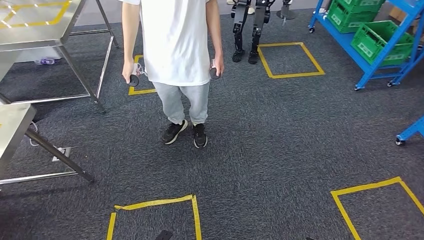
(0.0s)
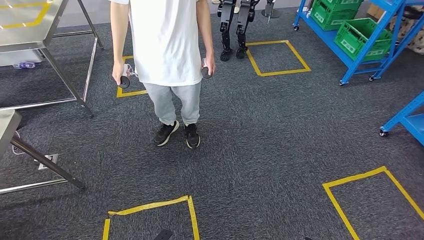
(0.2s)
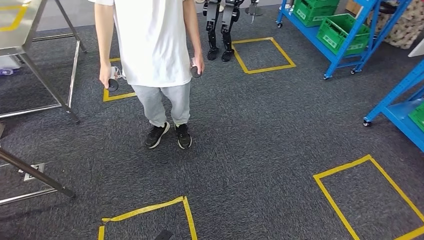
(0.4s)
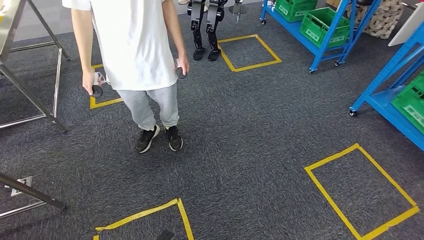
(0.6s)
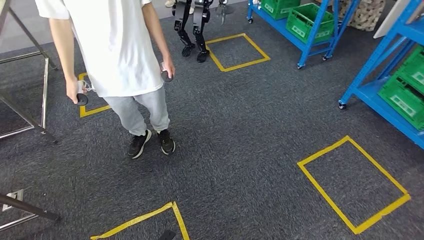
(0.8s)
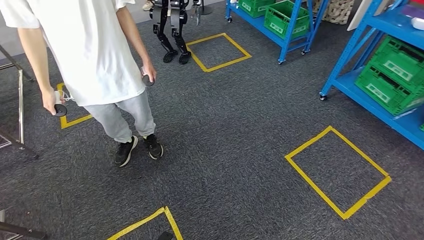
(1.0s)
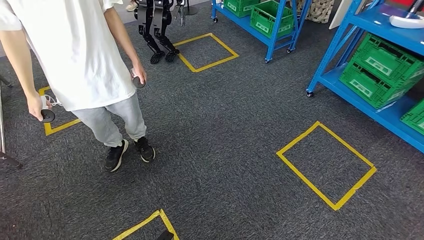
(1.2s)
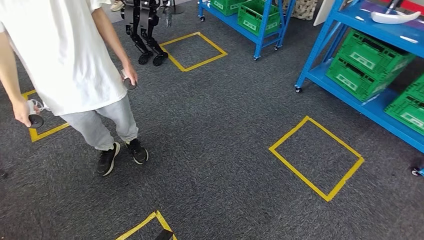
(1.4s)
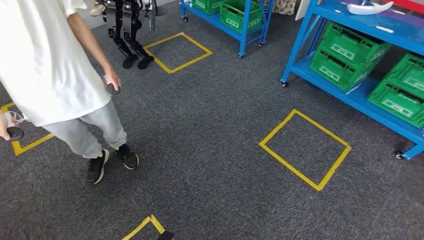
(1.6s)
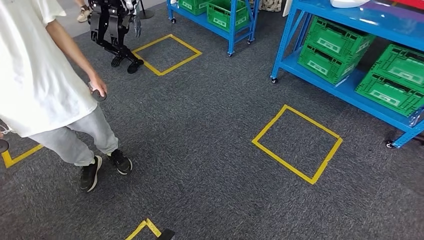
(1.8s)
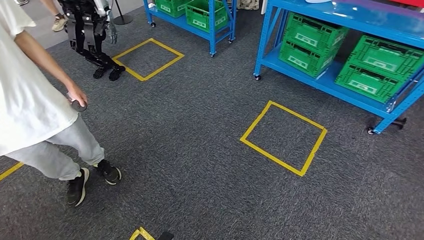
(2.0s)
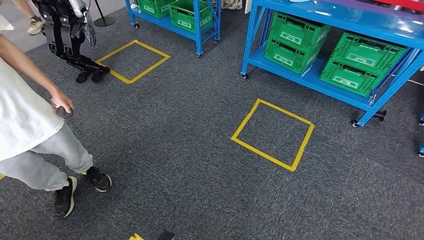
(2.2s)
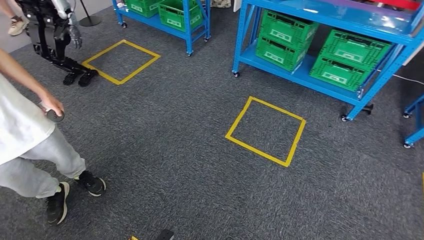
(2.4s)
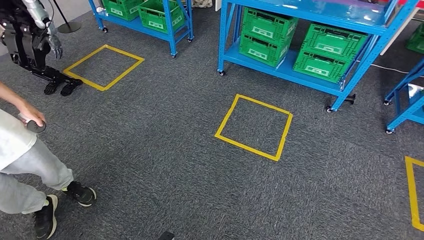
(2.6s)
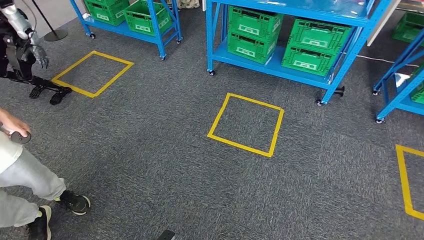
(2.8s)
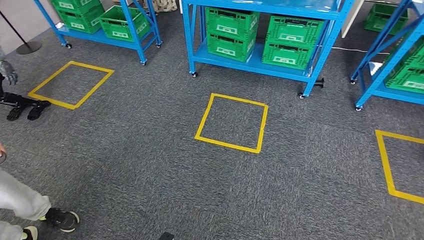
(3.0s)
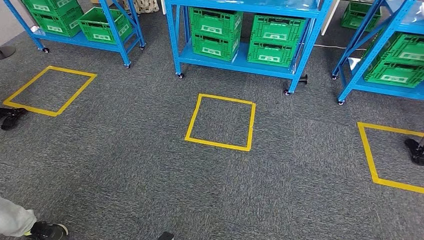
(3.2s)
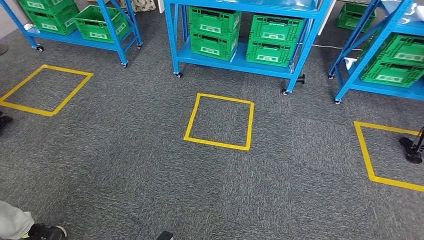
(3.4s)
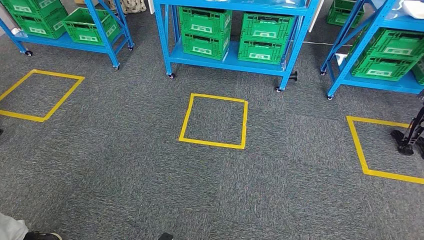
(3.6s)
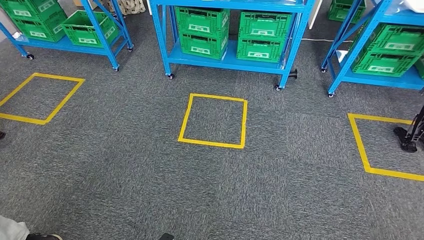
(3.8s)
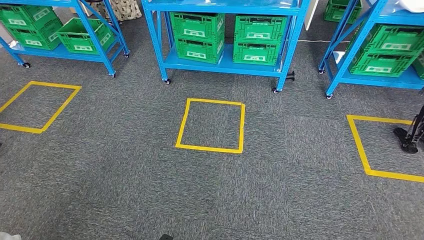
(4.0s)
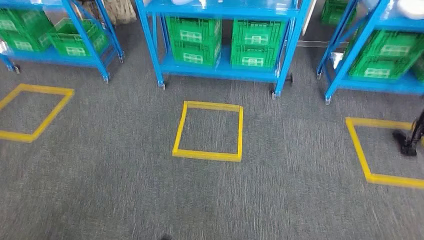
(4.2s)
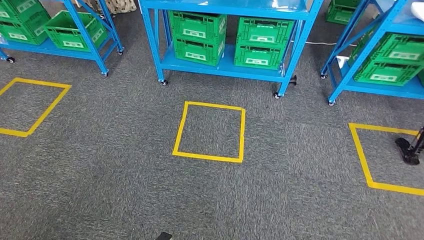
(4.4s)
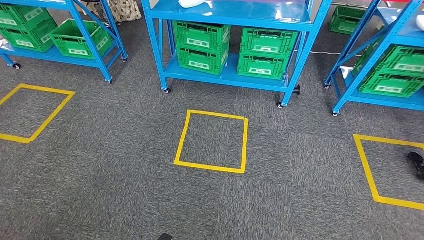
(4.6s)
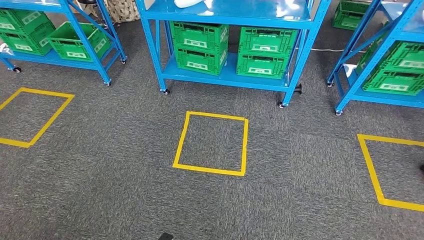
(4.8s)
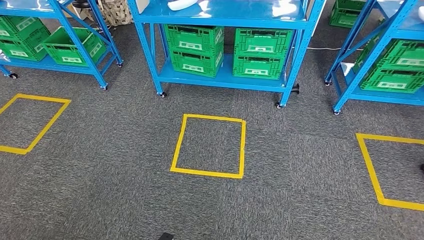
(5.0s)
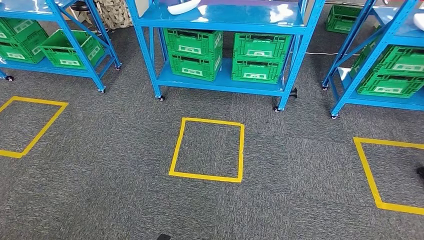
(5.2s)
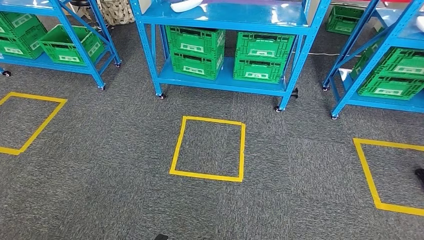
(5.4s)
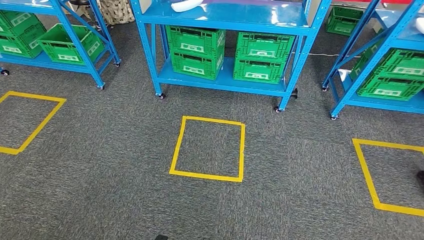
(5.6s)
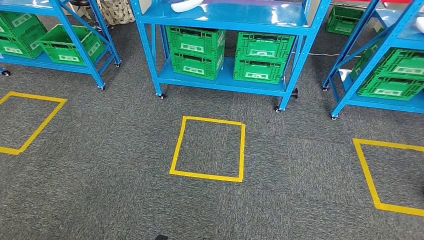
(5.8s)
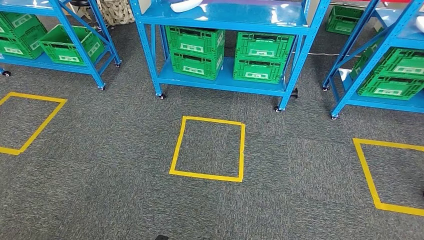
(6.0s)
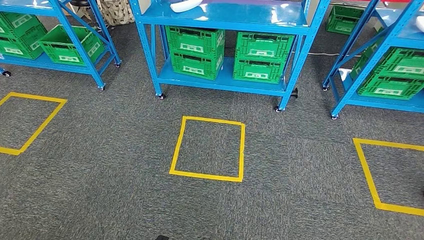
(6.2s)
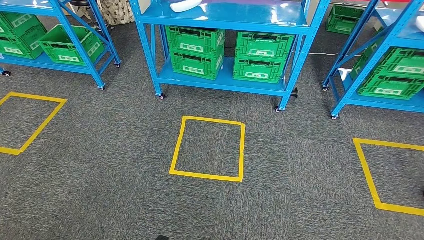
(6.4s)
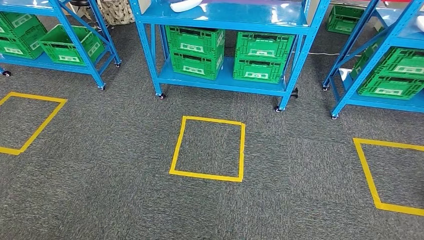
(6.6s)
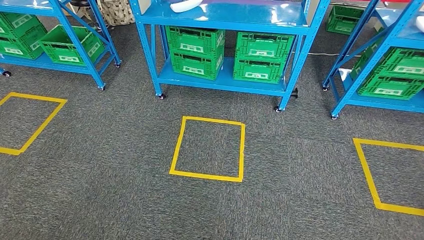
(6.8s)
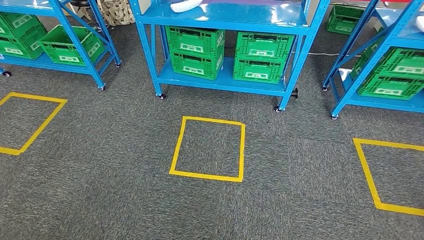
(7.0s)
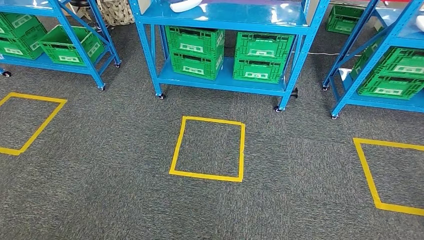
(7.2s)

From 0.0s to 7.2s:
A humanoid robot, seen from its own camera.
Step, from 0.0s to 7.2s: Return to the initial position at the workbench.
From 5.8s to 7.2s: The right hand shifts about 5 cm backward.

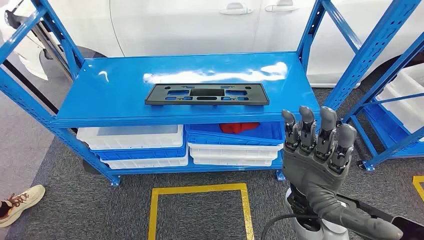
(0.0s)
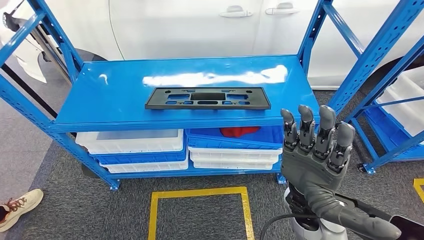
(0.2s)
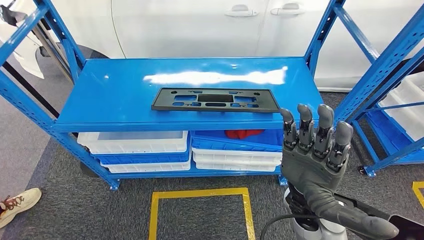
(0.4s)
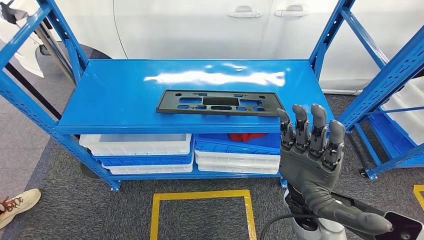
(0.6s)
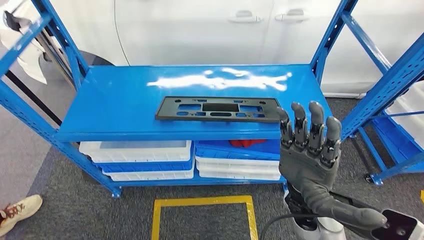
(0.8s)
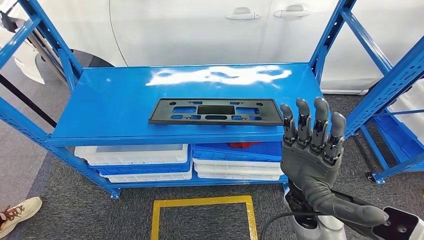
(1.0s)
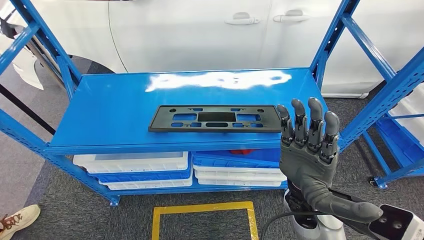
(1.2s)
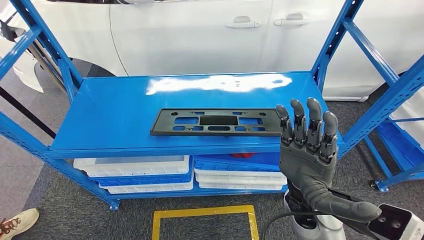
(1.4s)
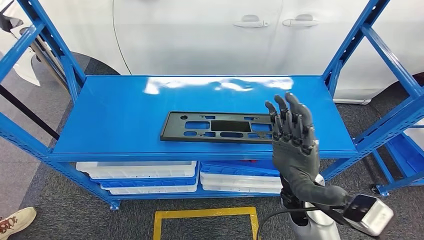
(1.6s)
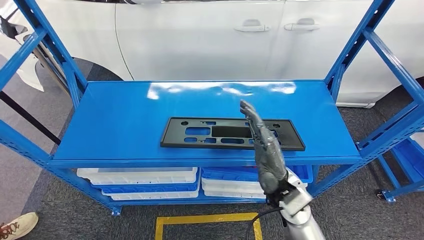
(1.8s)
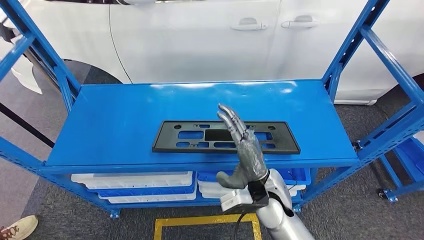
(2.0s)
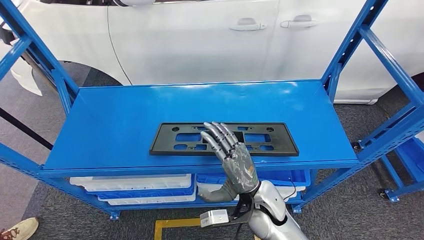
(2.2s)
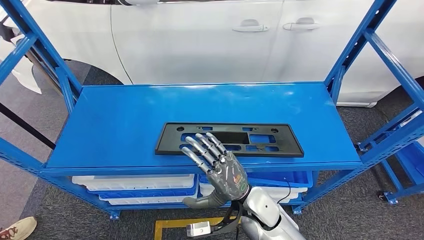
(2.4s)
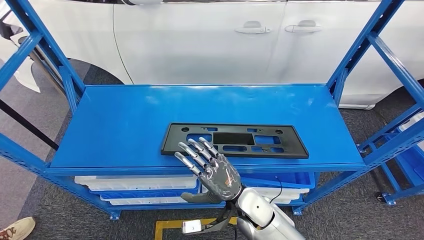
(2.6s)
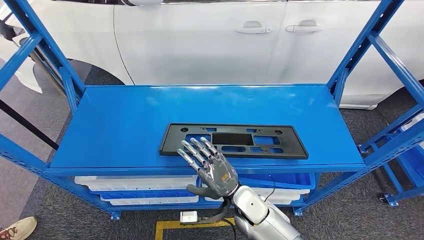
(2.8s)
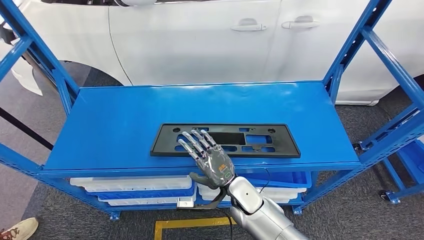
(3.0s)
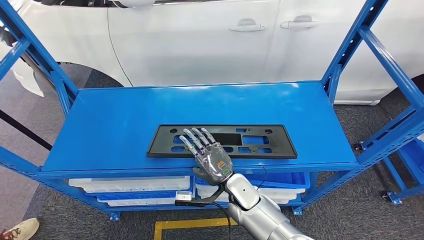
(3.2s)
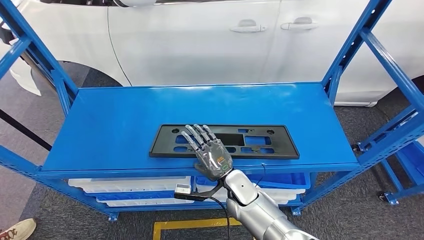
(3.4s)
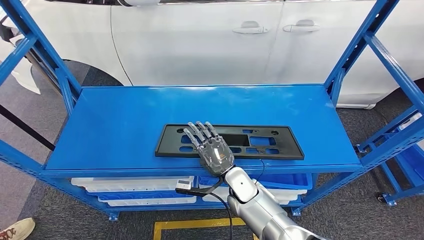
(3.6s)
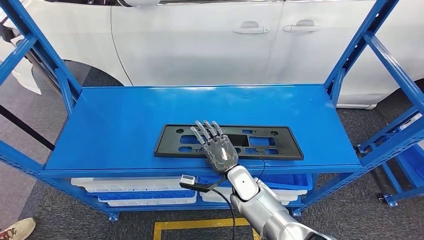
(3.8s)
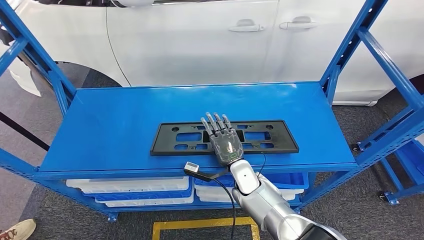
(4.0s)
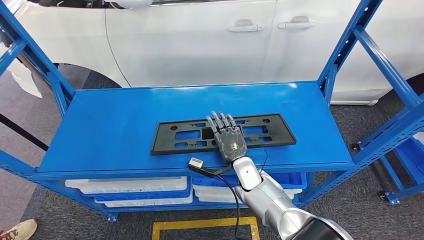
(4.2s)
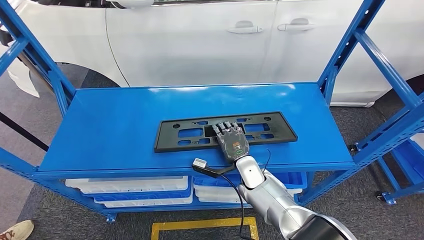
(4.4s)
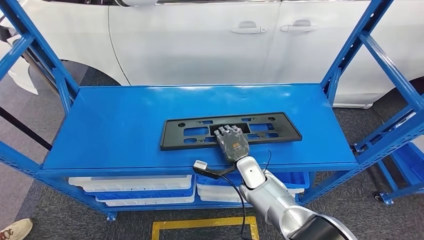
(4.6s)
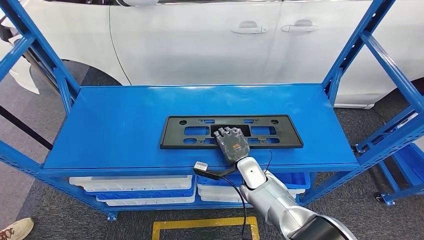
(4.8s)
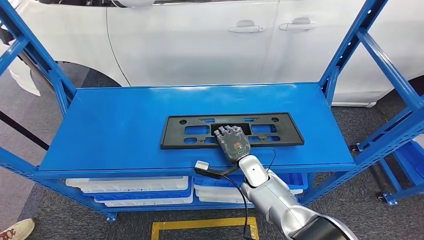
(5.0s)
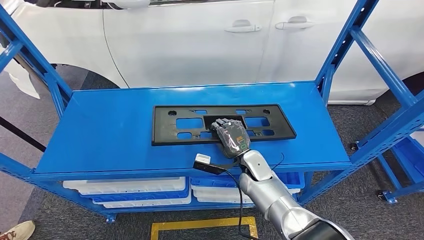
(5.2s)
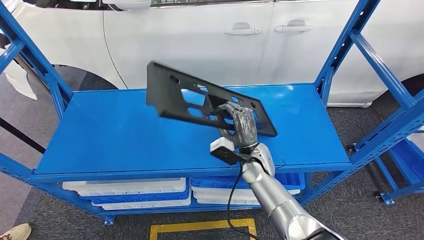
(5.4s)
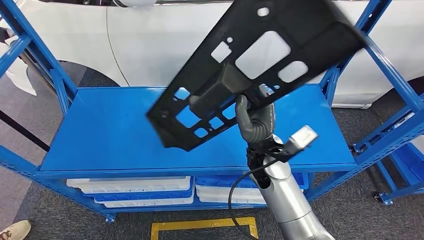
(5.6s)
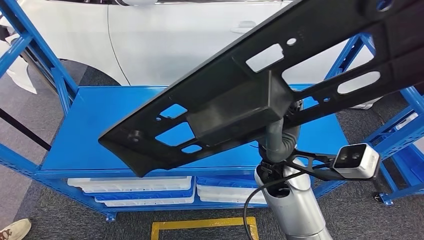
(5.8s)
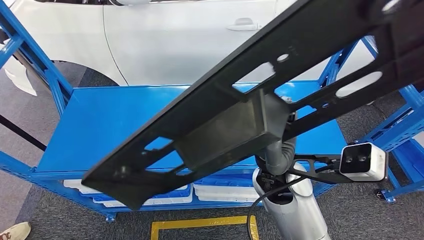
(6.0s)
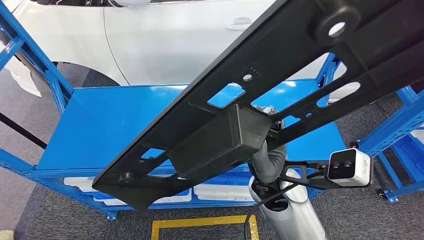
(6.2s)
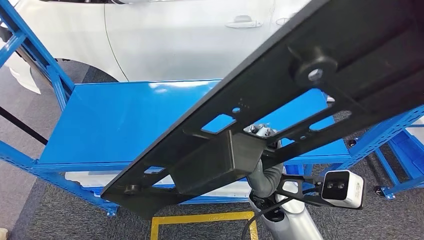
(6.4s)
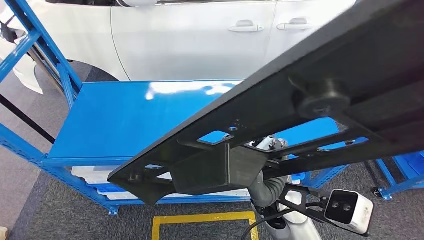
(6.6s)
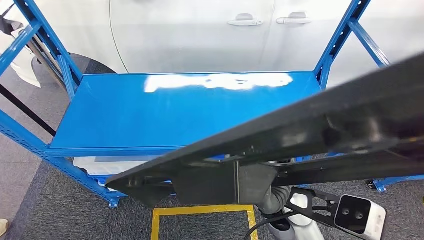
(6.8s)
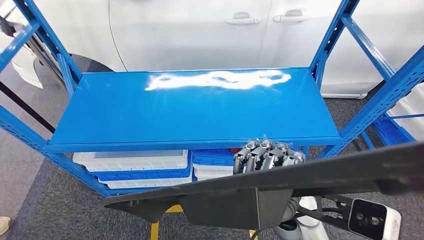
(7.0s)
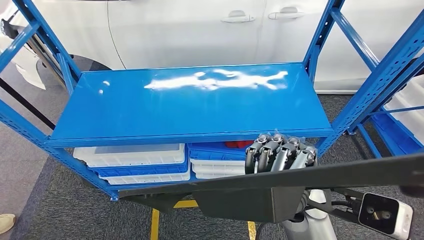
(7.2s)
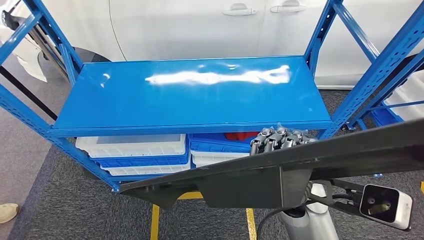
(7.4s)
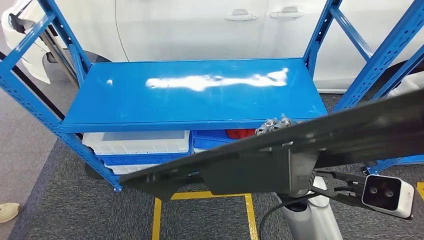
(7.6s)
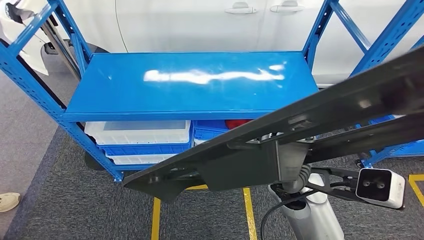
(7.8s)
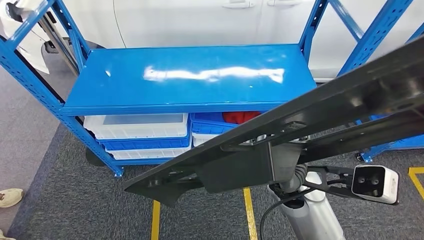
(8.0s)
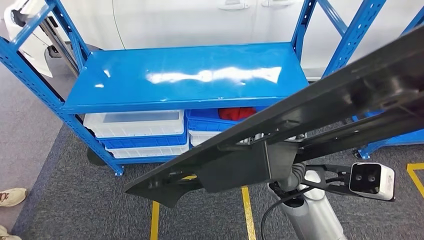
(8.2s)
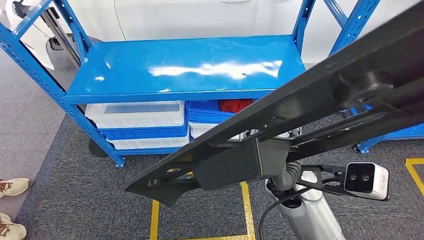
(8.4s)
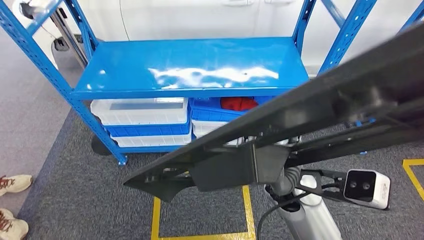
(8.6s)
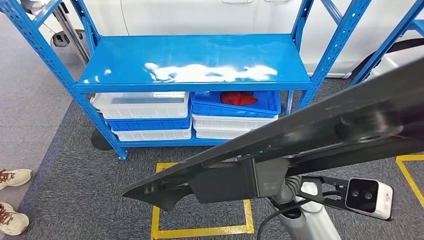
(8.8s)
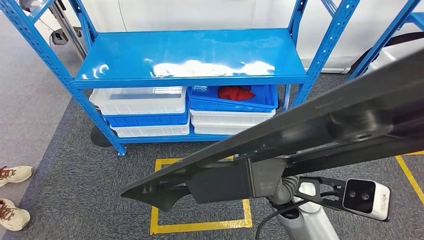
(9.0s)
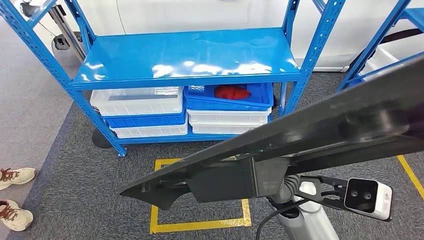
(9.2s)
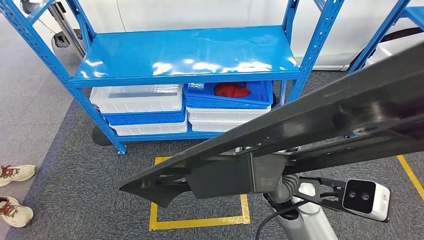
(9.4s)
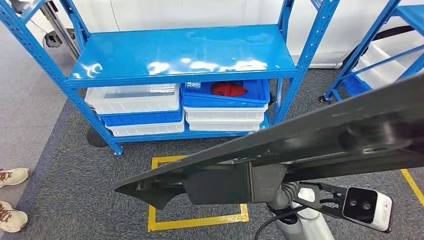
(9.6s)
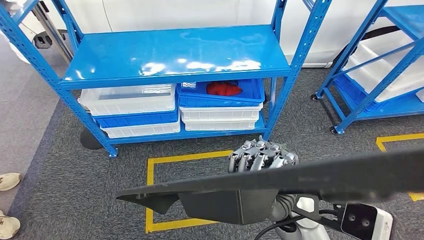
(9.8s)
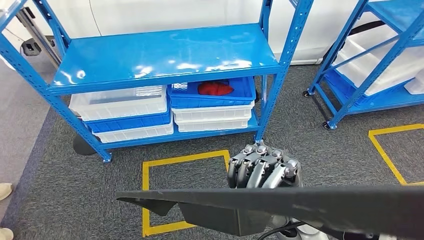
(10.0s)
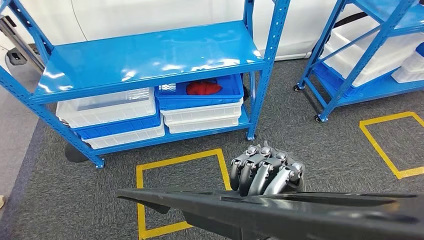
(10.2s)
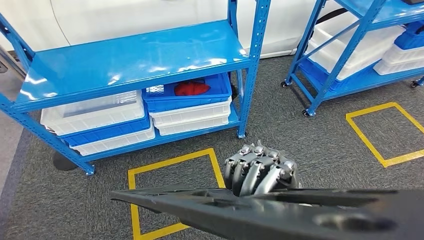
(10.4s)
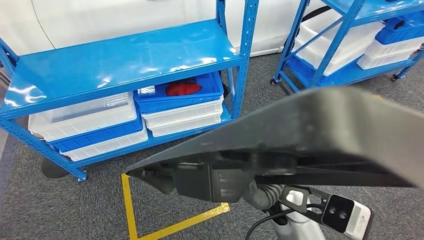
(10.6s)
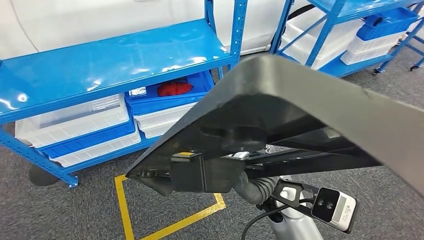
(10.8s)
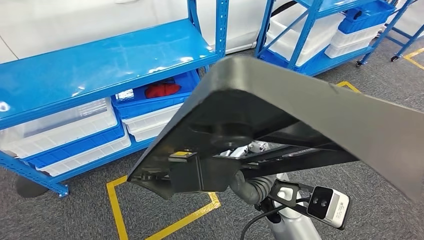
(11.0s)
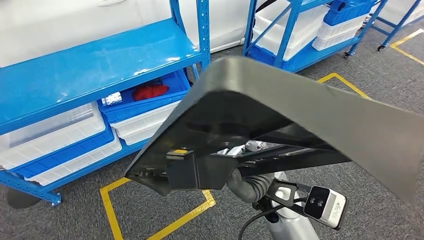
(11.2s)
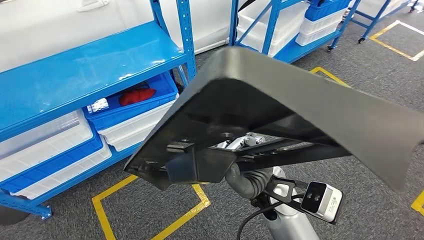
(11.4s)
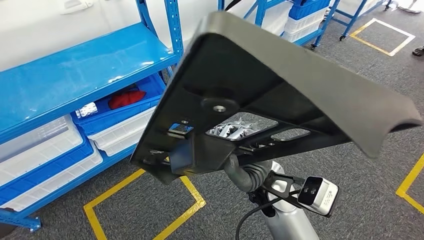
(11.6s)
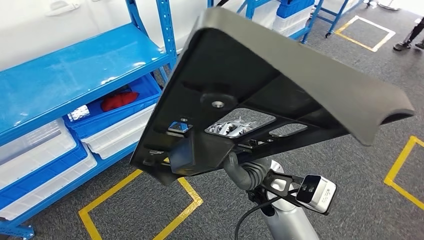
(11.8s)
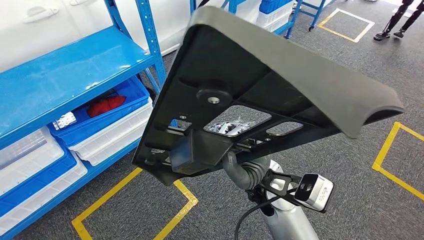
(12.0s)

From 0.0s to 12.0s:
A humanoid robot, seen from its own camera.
Step, from 0.0s to 5.4s: Pick up the large parts from the shelf.
